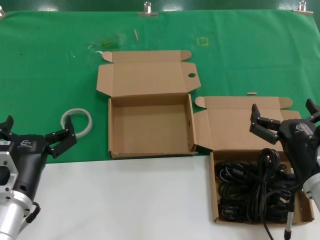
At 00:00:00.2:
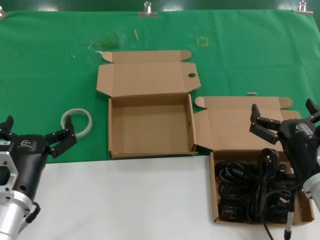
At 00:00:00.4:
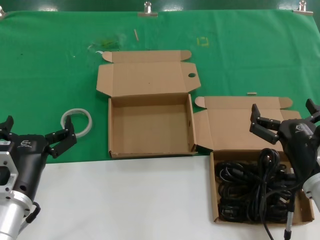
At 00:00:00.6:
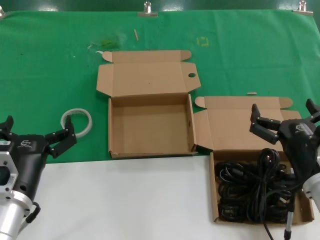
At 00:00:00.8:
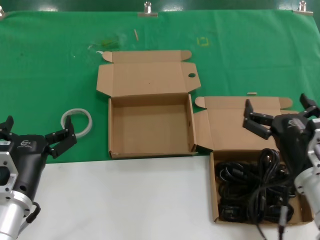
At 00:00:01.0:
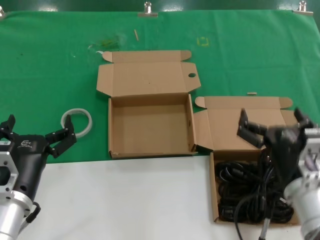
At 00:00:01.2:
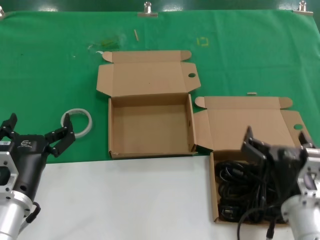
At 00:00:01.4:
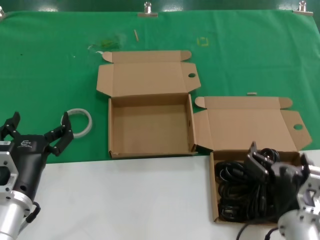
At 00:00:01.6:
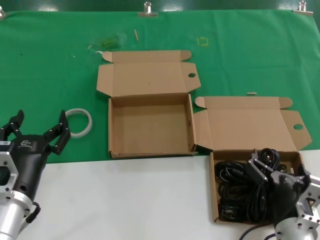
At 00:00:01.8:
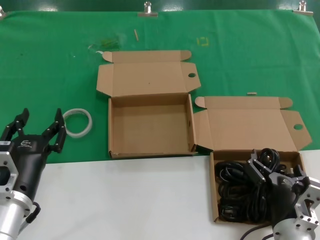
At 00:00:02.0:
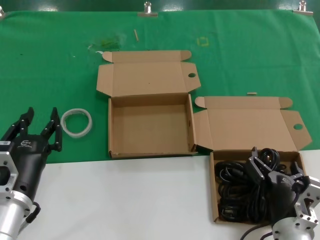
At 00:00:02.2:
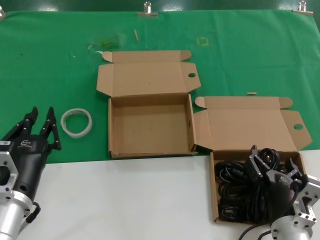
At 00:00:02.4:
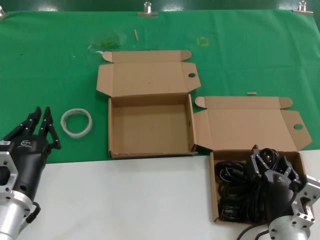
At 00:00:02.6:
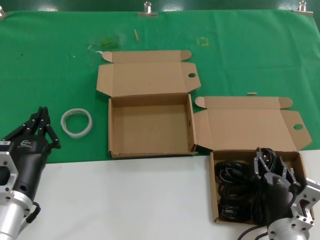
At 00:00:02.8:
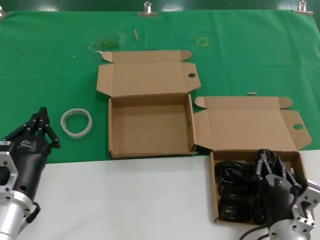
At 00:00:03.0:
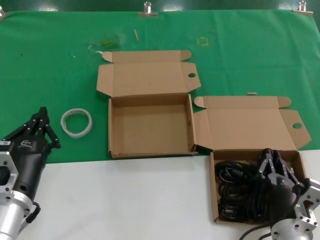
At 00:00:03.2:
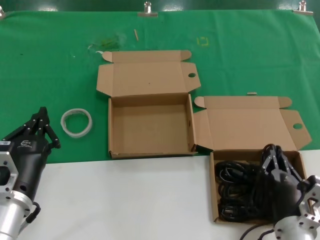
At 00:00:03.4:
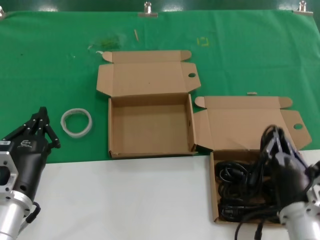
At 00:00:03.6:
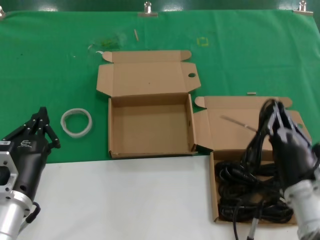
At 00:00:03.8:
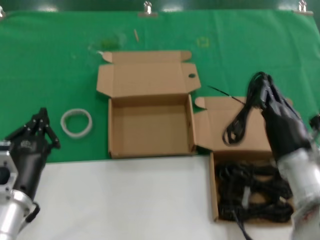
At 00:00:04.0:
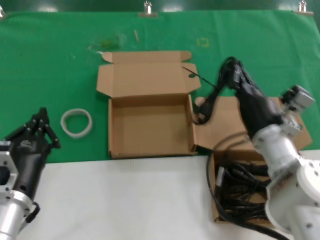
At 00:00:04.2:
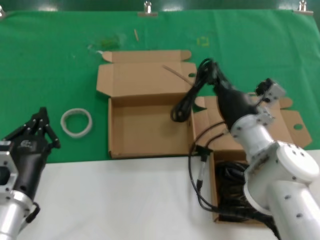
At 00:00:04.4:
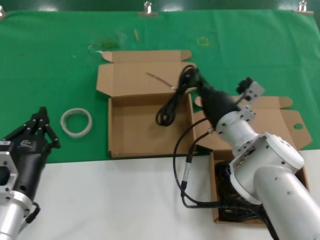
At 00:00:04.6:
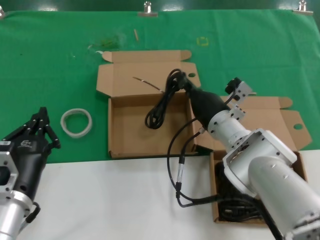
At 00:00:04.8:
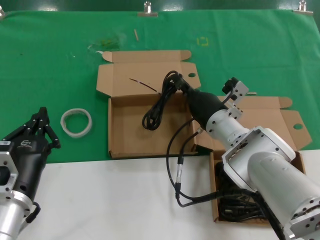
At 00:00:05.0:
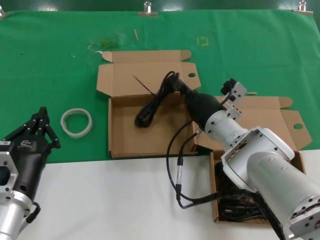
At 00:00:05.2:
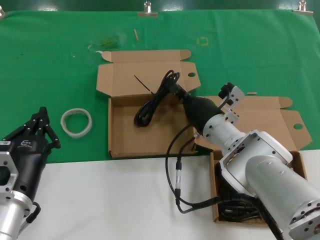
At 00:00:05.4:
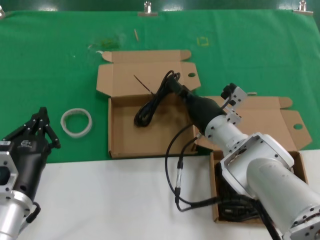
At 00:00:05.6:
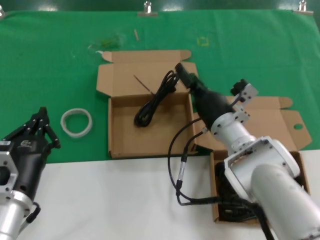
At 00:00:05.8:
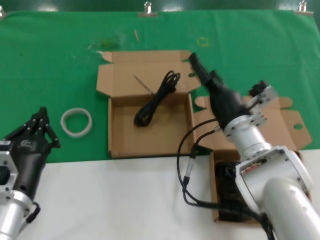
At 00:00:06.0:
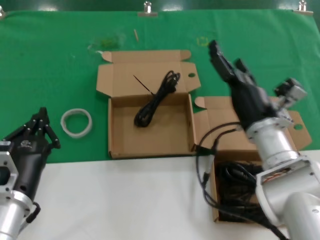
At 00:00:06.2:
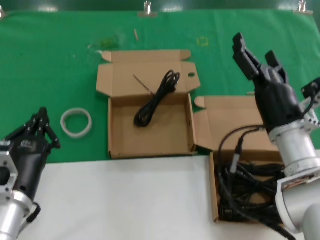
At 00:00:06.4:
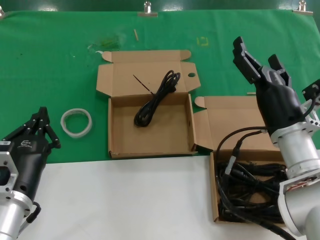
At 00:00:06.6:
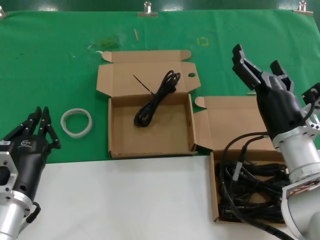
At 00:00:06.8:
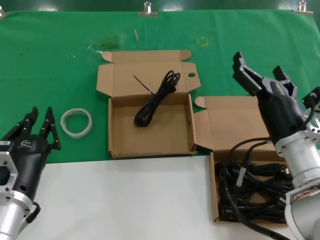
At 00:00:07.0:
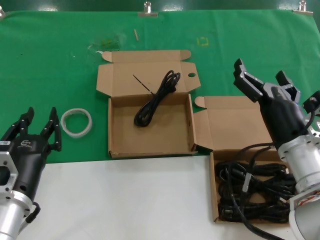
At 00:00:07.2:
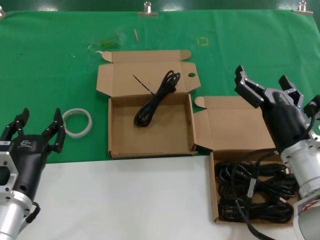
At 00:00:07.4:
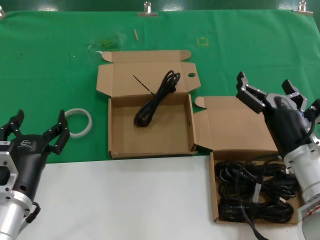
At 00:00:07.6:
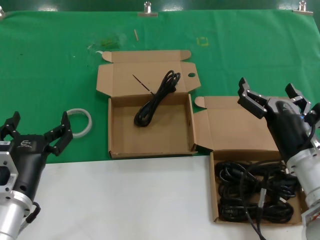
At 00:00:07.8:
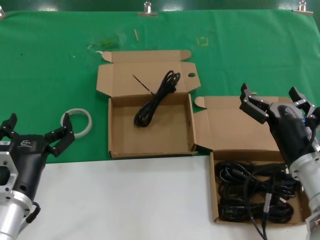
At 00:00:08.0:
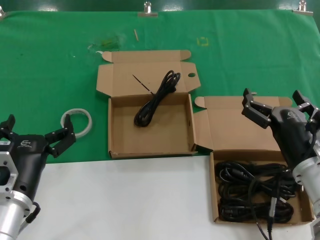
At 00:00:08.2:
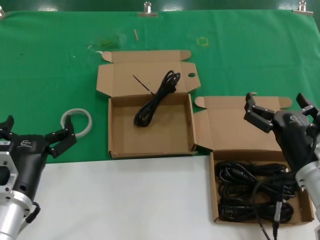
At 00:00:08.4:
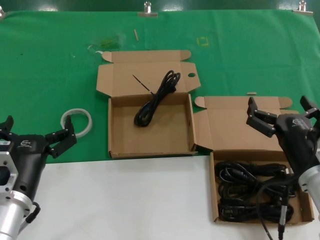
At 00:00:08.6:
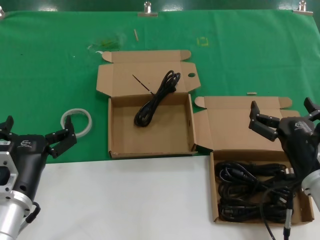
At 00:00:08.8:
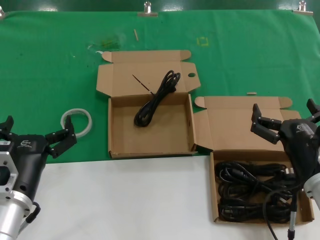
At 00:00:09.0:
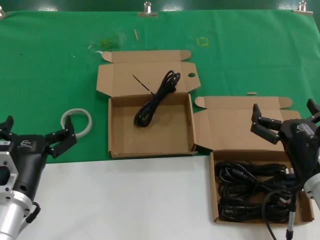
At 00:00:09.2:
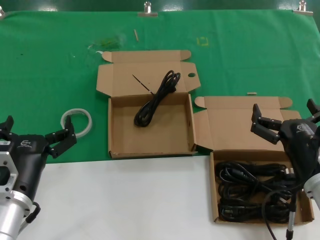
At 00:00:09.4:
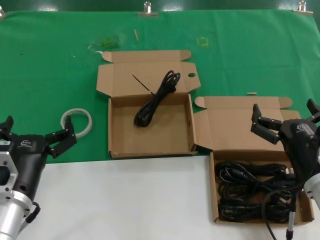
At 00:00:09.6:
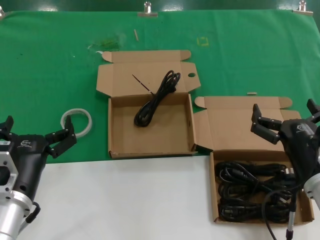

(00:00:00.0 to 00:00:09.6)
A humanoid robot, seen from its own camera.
Task of the whole recording: Pick up the power cord from the box containing it and place it in another box.
Step, 00:00:00.0 - 00:00:03.2: Grasp the data cable.
Step, 00:00:03.4 - 00:00:05.6: Place the data cable in the another box.
00:00:00.0 - 00:00:01.6: The right hand moves downward and to the left, approximately 10 cm.
00:00:01.6 - 00:00:03.2: The hands move only a little.
00:00:03.2 - 00:00:04.8: The right hand shifts about 25 cm forward.
00:00:04.8 - 00:00:06.4: The right hand moves backward and to the right, about 15 cm.
00:00:06.4 - 00:00:08.0: The right hand travels backward by about 5 cm.
00:00:08.0 - 00:00:09.6: The hands move only a little.

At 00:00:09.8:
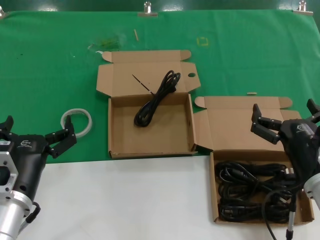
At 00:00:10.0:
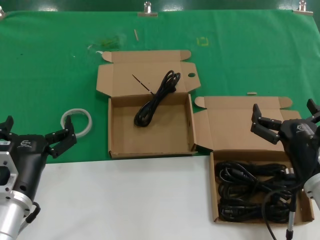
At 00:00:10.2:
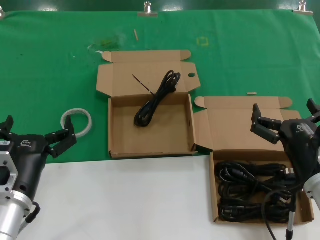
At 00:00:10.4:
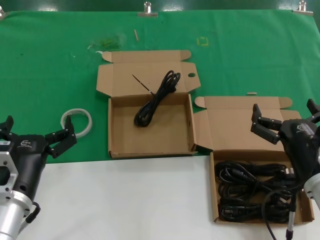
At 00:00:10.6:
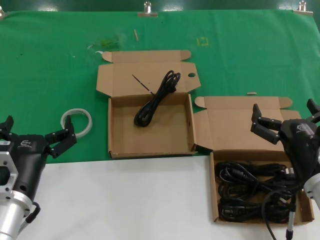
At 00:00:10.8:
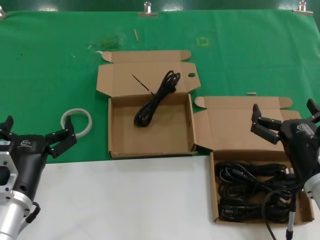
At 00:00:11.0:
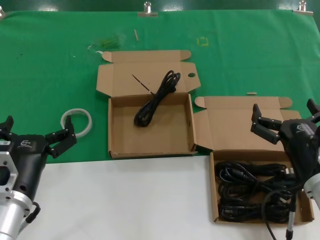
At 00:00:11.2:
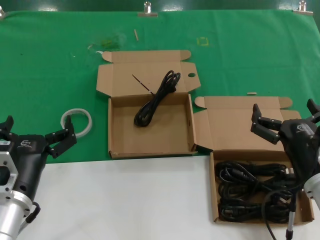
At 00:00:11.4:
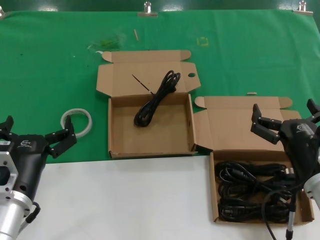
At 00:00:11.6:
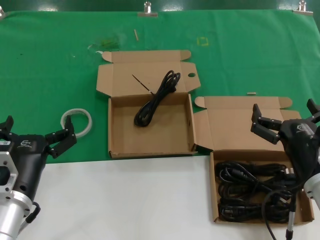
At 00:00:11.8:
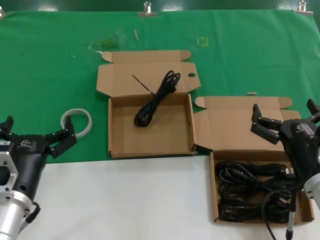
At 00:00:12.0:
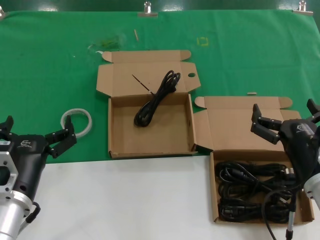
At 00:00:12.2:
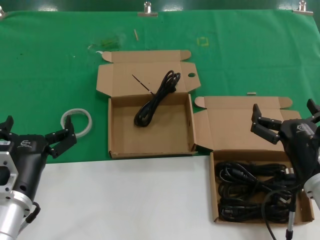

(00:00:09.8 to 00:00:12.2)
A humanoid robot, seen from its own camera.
Task of the whole recording: Pick up the power cord from the box containing it and place it in another box.
00:00:09.8 - 00:00:12.2: Both hands stay put.
